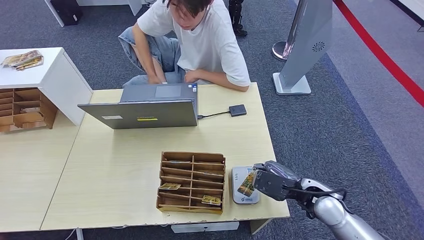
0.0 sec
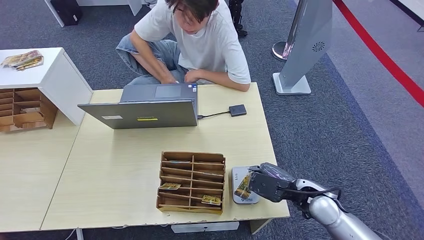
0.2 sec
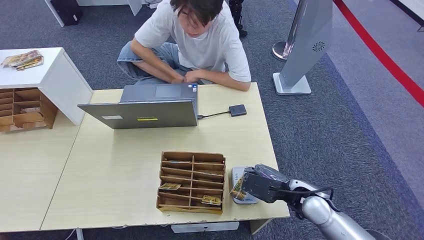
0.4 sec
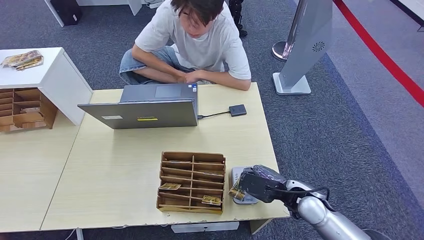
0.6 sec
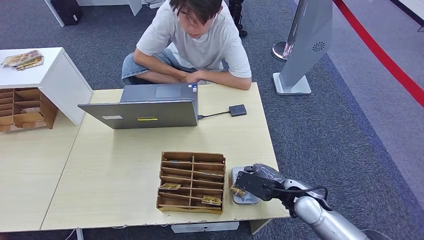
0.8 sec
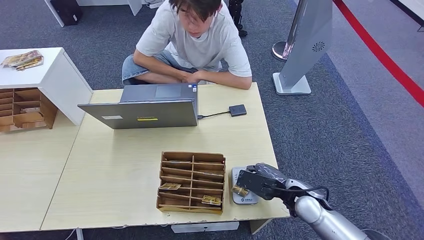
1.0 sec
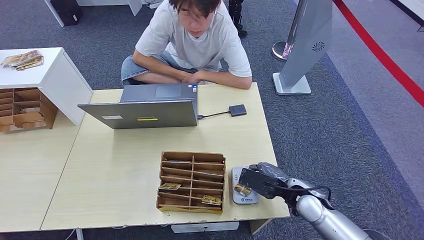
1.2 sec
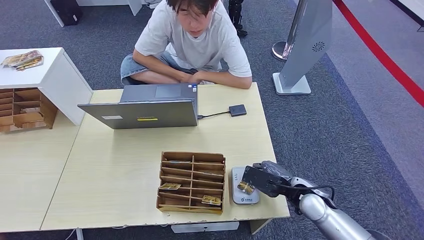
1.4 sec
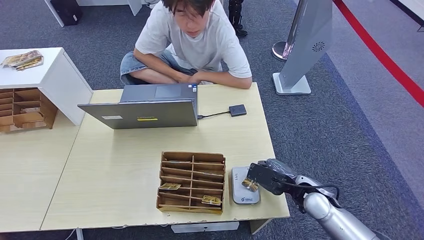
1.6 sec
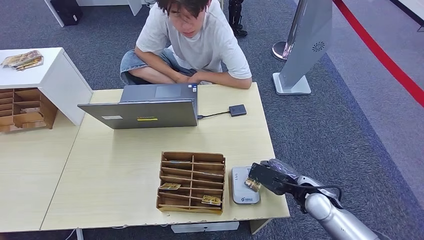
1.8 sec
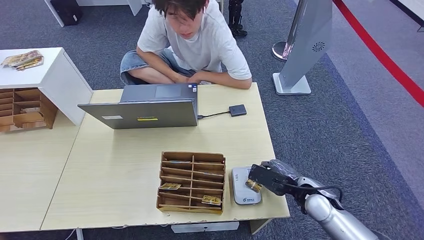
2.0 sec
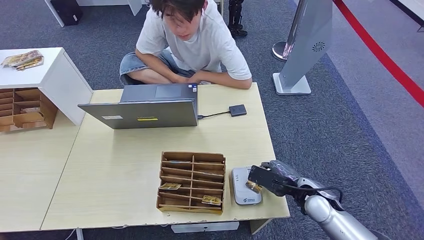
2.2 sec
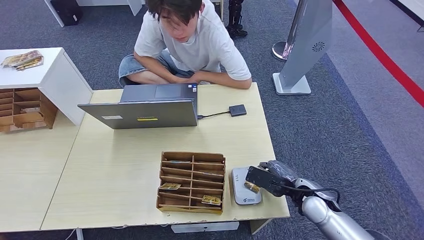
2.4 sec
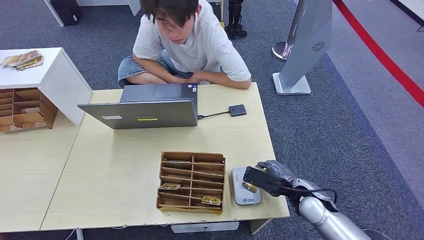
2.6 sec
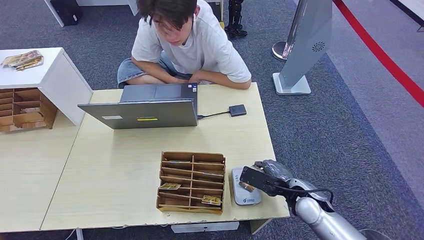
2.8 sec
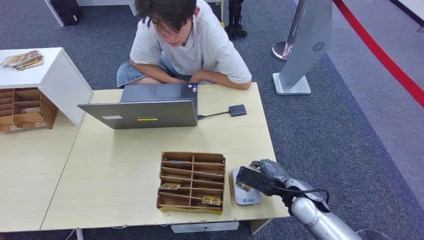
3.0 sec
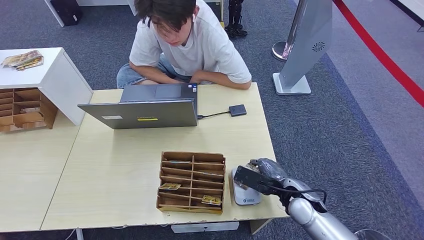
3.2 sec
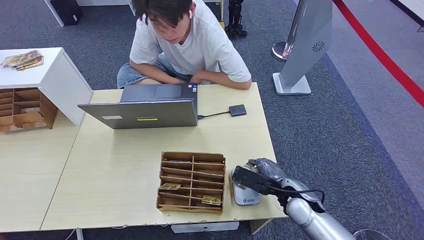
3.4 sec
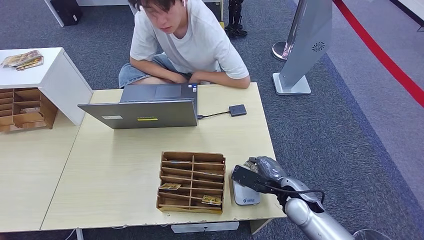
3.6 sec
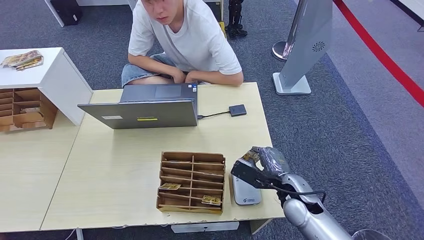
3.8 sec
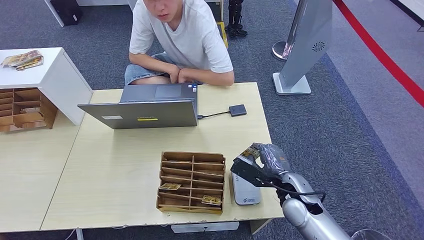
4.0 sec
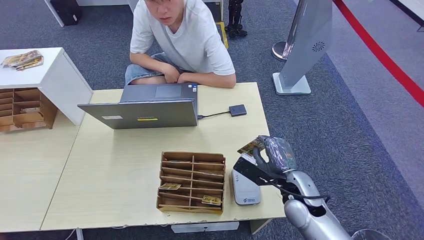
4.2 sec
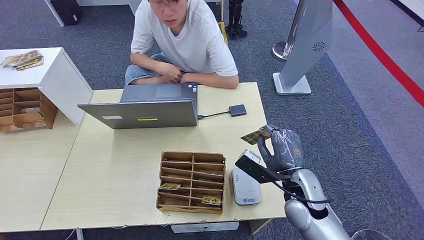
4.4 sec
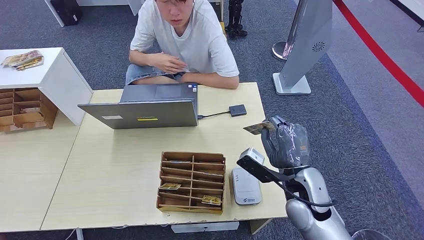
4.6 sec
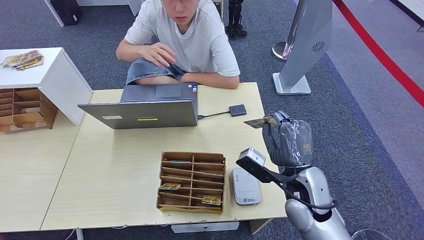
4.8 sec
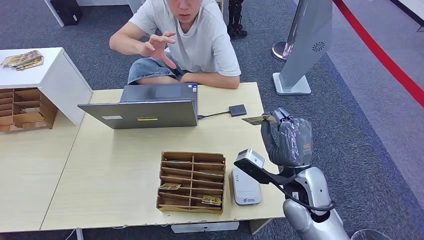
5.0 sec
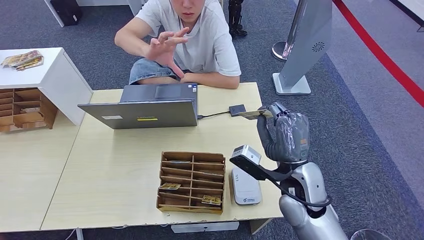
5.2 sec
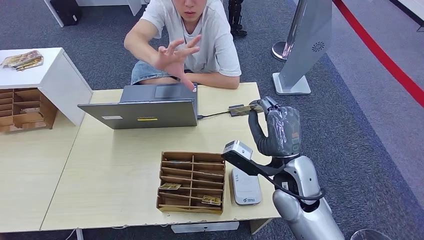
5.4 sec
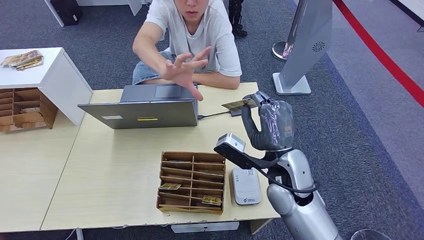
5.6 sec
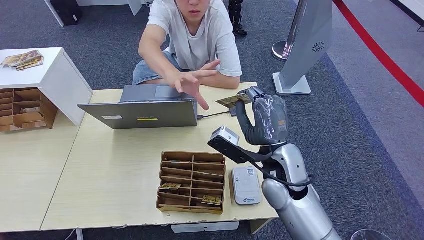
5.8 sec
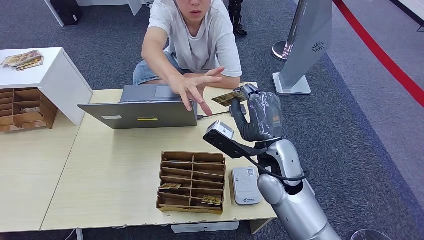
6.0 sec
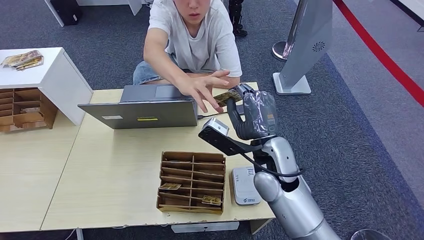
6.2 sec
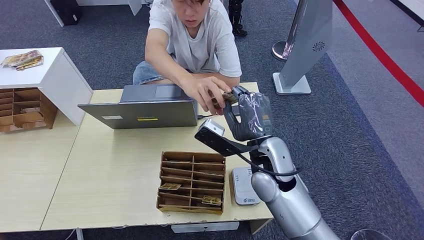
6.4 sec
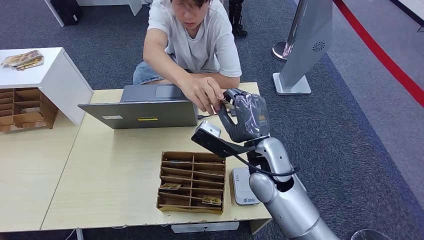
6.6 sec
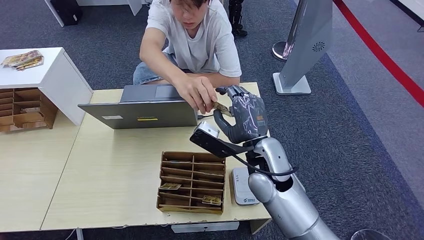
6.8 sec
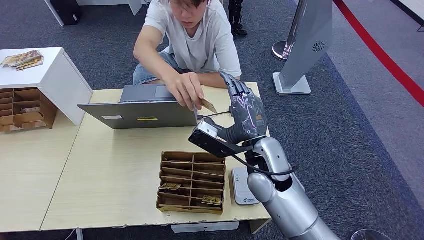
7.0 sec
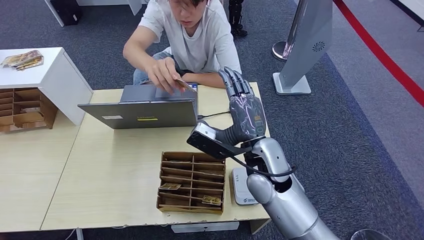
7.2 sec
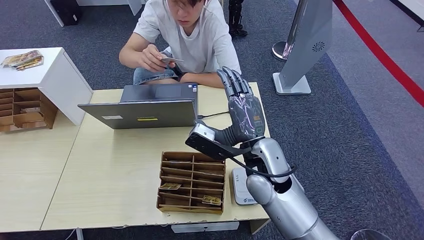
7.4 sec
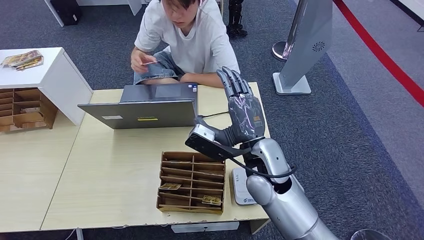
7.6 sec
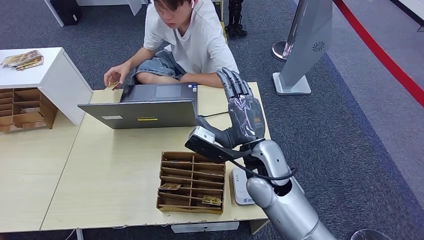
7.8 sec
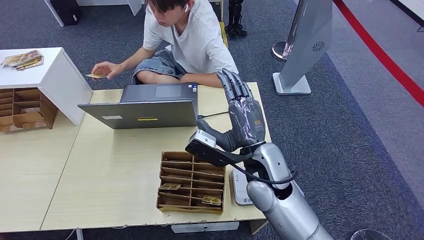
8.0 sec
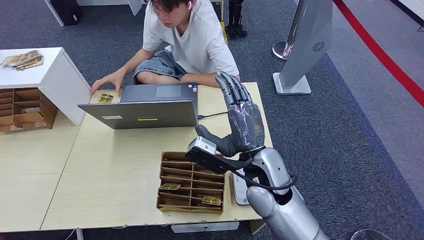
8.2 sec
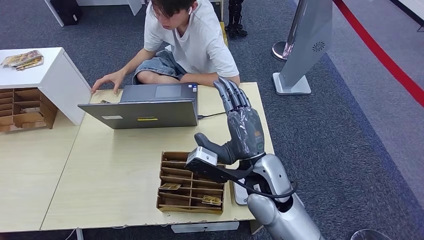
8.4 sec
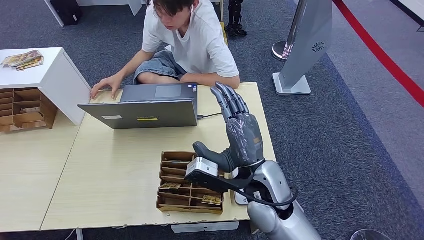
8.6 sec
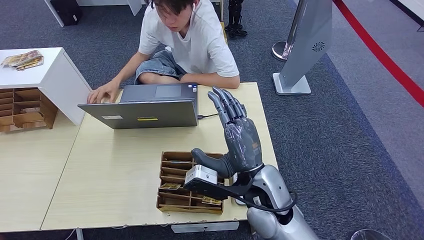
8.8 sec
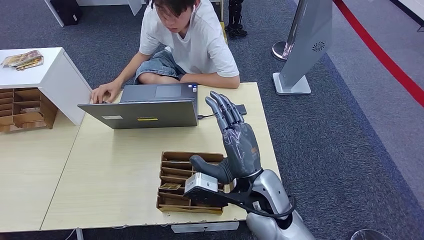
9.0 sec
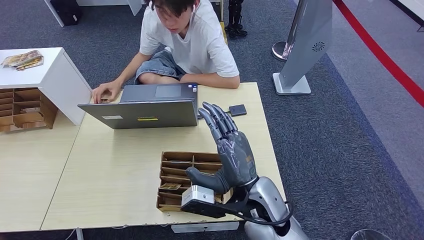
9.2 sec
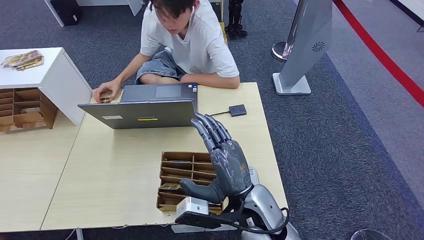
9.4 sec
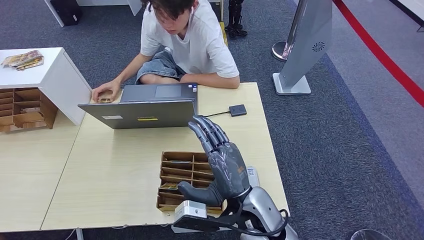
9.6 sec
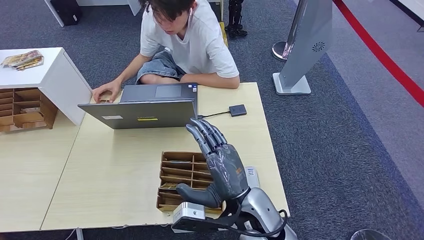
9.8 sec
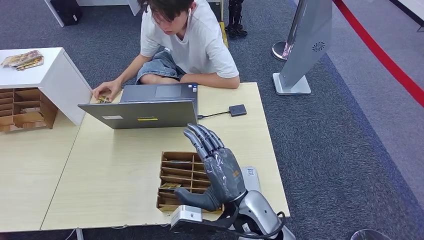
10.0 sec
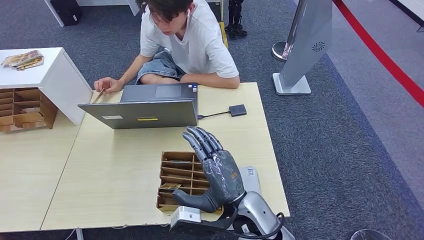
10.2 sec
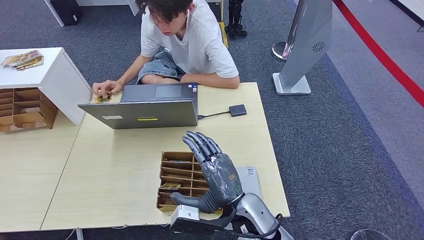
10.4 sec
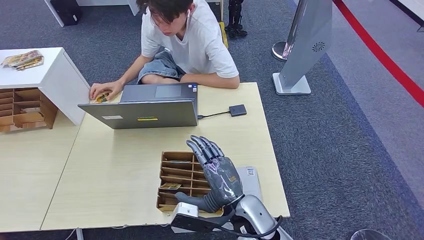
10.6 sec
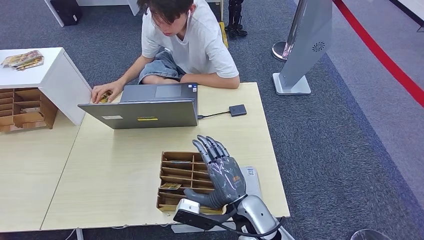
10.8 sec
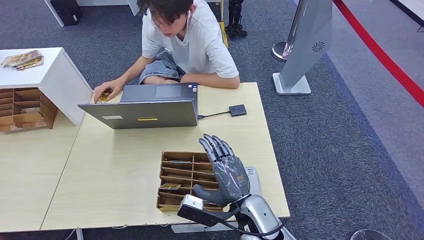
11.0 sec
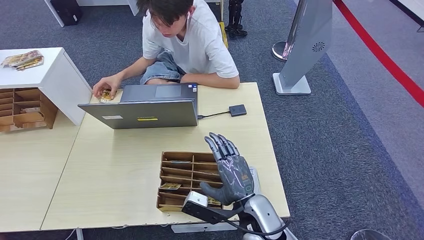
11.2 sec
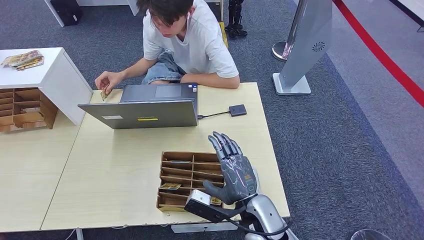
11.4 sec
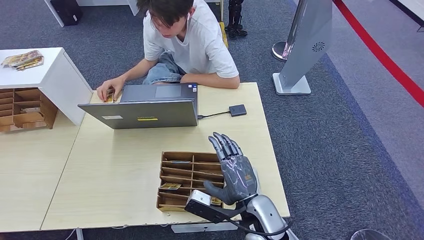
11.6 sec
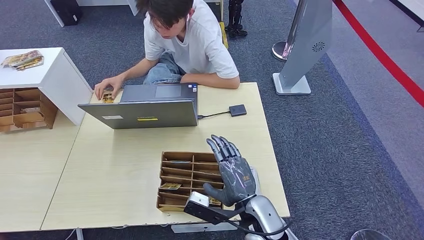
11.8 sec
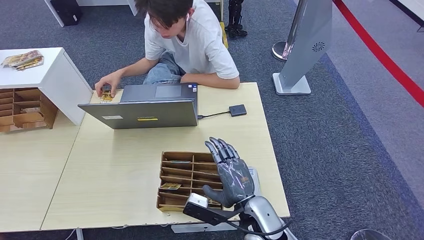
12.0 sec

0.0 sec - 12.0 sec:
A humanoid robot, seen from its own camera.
Step, 0.0 sec - 2.8 sec: Place the ID card on the card reader.
Step, 3.2 sec - 7.4 sec: Hand the ID card to the person.
0.0 sec - 3.0 sec: There are only small adjustments of the hands.
3.0 sec - 4.4 sec: The right hand heads upward, covering roughly 5 cm.
4.4 sec - 6.0 sec: The right hand is displaced upward and to the left by some 10 cm.
6.0 sec - 7.6 sec: The hands stay close to where they were, moving slightly.
7.6 sec - 9.0 sec: The right hand is displaced backward by roughly 5 cm.
9.0 sec - 10.4 sec: The right hand travels downward by roughly 5 cm.
10.4 sec - 12.0 sec: The hands make only small movements.

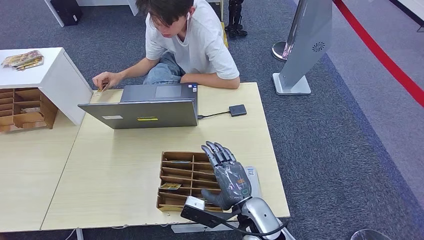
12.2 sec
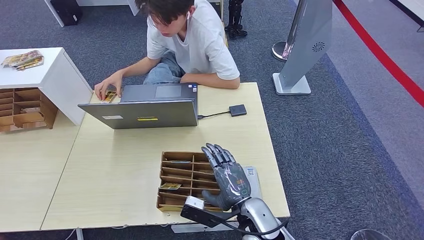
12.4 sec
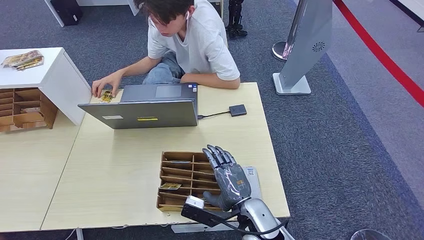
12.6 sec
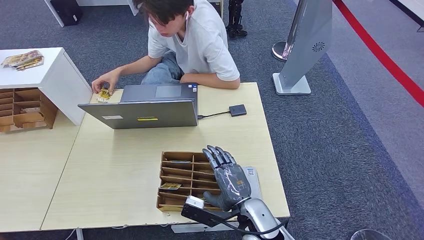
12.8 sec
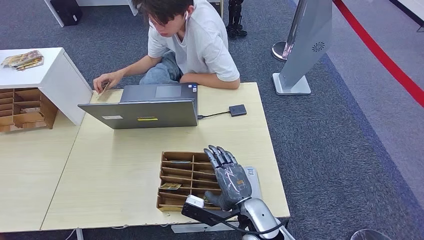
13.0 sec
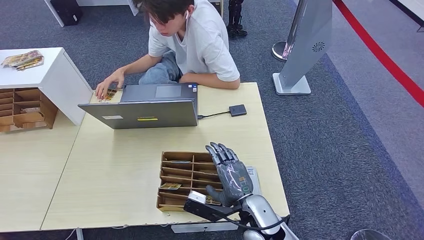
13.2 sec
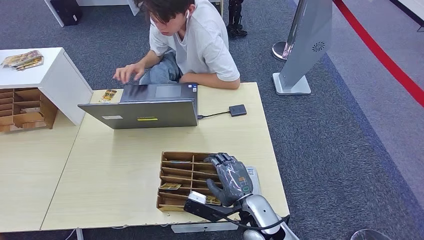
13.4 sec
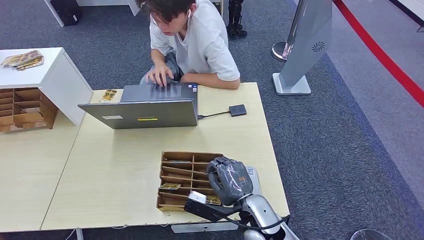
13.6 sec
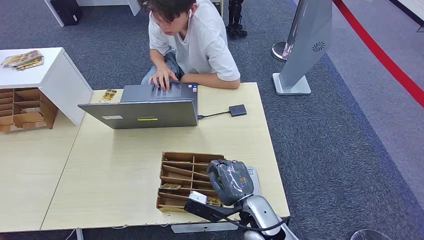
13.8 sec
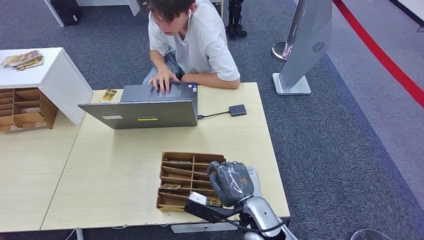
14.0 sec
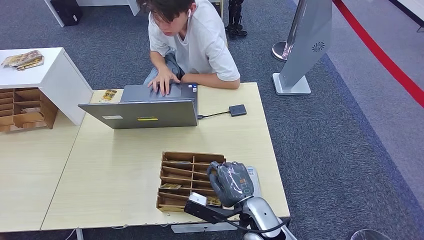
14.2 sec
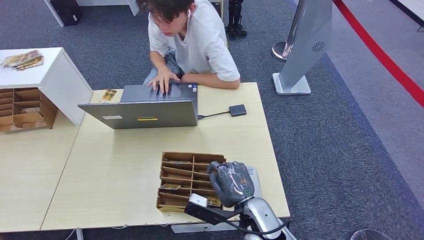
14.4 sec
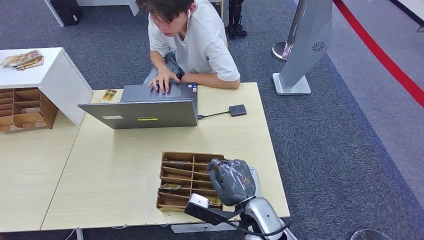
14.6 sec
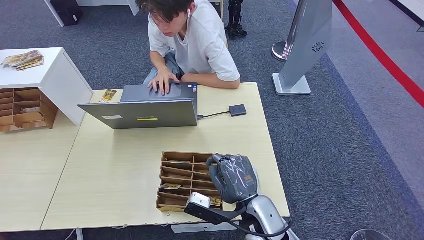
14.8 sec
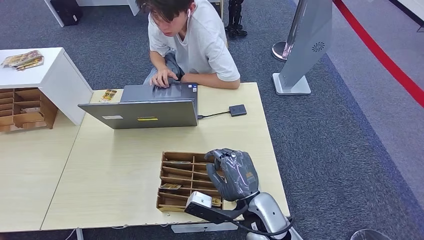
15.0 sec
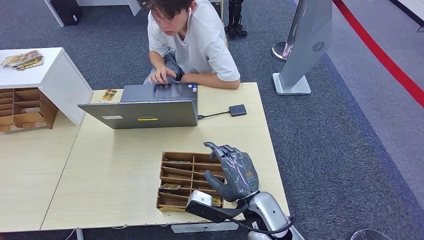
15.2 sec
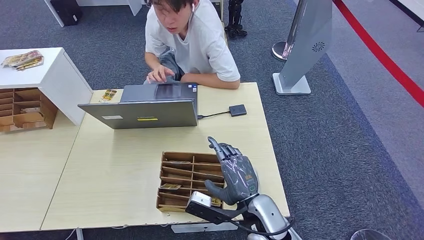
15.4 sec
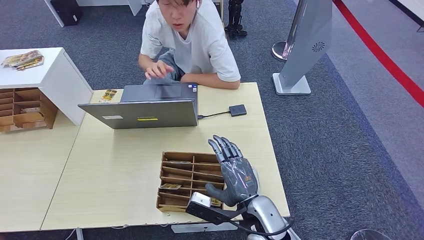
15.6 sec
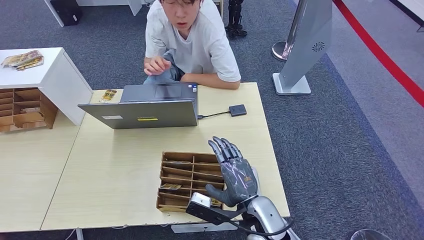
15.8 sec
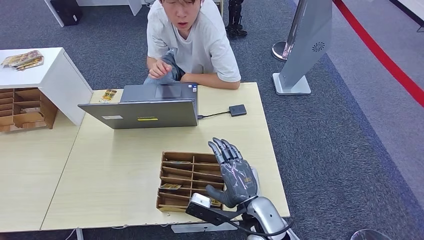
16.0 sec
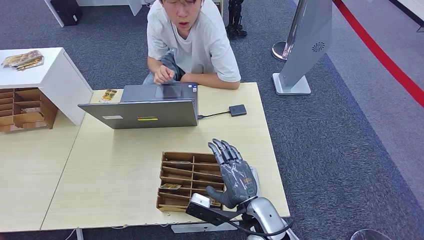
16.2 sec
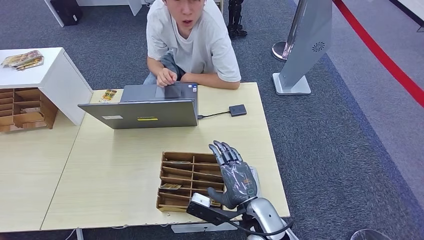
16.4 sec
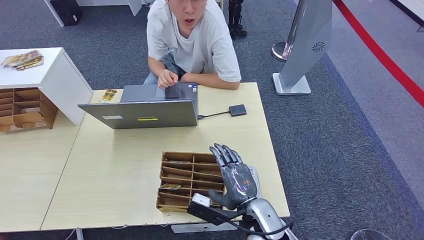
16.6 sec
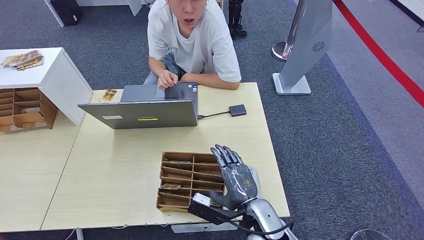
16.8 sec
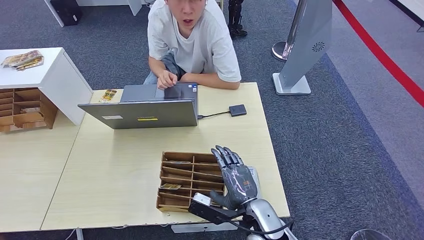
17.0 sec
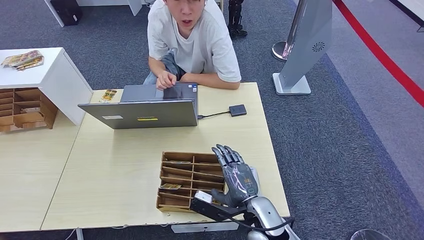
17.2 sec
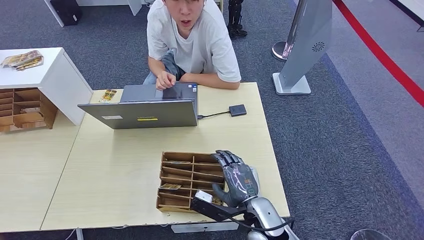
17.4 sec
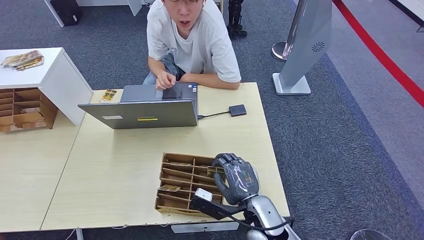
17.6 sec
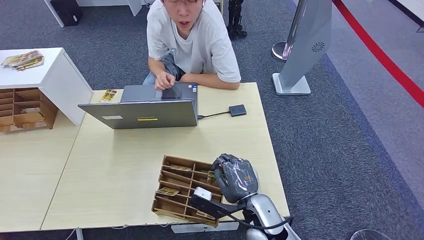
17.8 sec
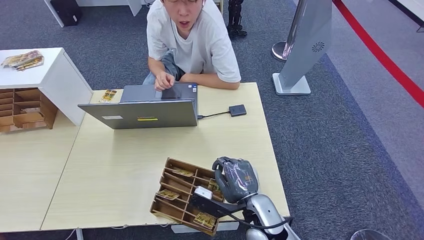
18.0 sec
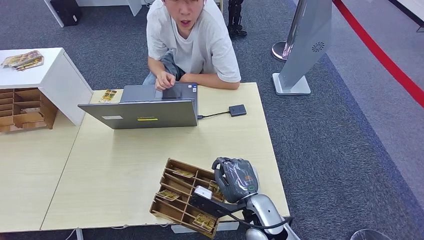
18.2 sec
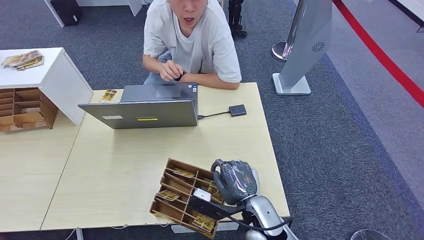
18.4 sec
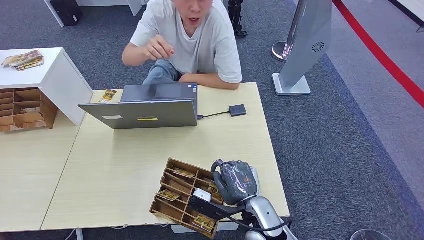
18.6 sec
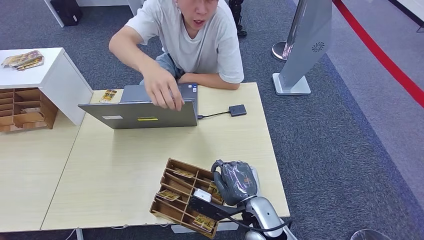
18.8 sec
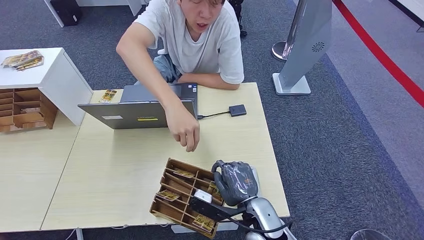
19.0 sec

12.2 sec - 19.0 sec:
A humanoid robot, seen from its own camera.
12.2 sec - 17.6 sec: The hands make only small movements.
17.6 sec - 19.0 sec: Neither hand changes place.
